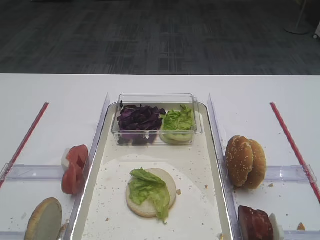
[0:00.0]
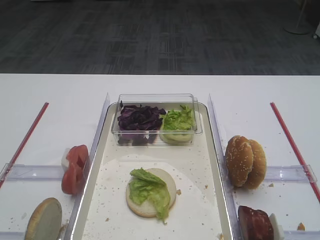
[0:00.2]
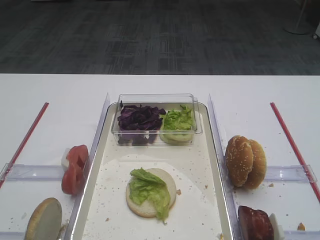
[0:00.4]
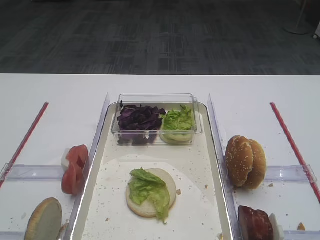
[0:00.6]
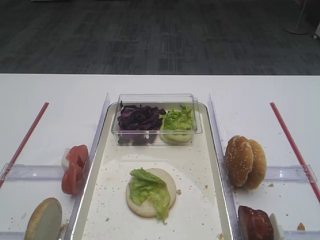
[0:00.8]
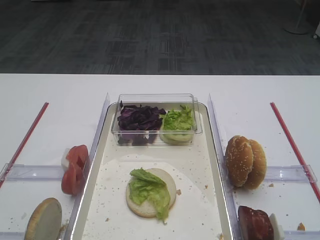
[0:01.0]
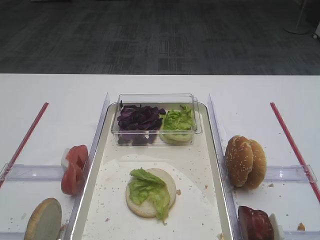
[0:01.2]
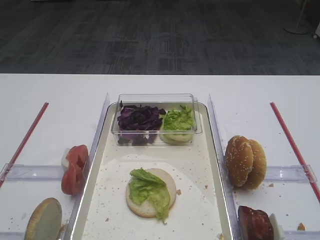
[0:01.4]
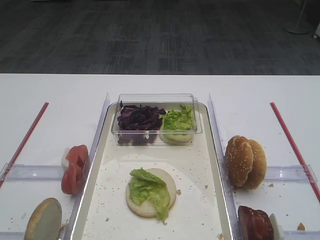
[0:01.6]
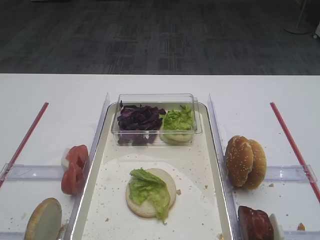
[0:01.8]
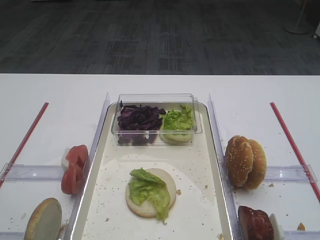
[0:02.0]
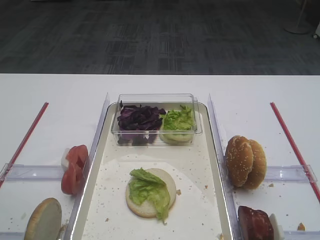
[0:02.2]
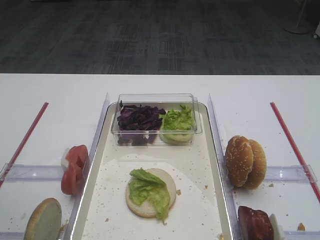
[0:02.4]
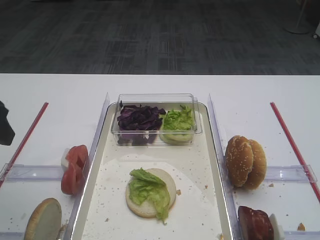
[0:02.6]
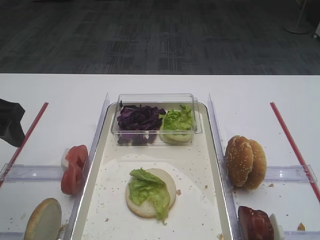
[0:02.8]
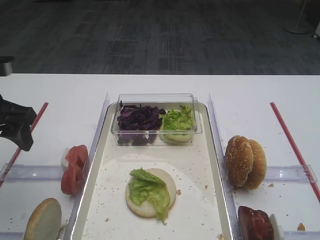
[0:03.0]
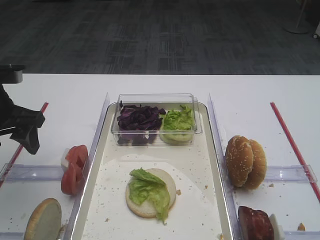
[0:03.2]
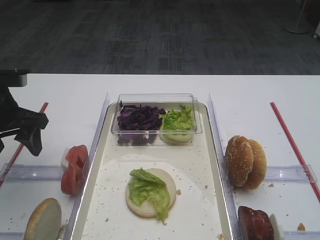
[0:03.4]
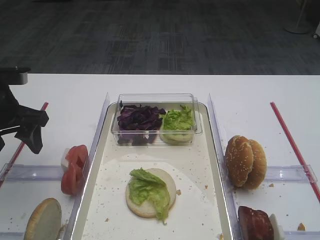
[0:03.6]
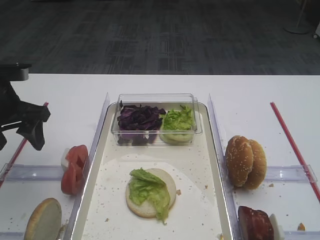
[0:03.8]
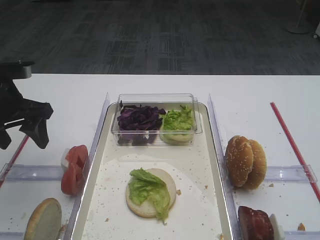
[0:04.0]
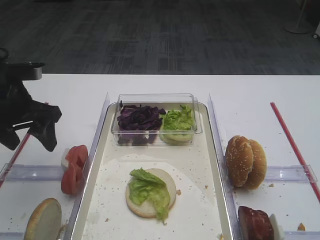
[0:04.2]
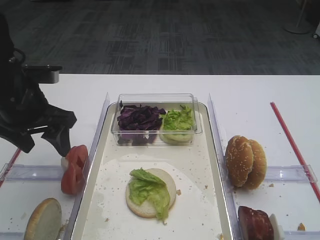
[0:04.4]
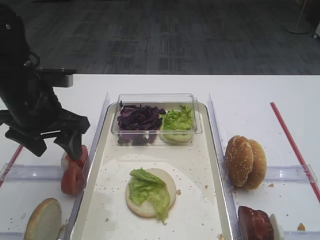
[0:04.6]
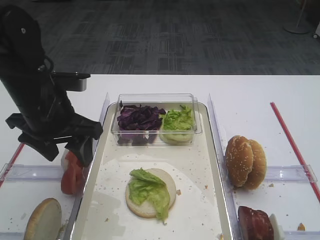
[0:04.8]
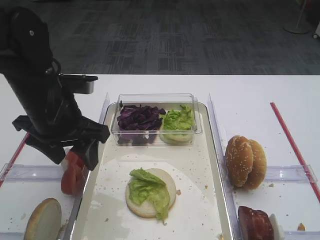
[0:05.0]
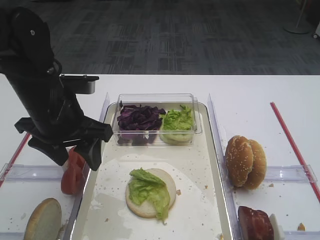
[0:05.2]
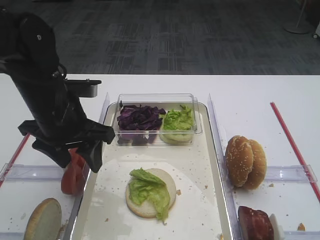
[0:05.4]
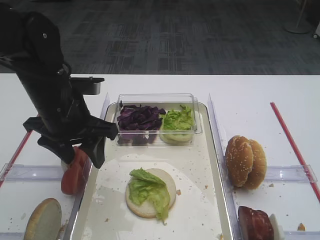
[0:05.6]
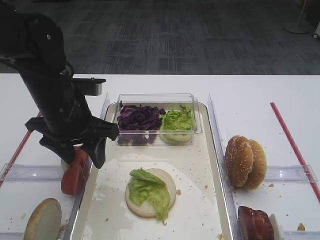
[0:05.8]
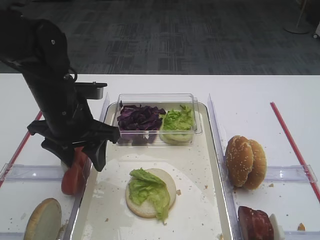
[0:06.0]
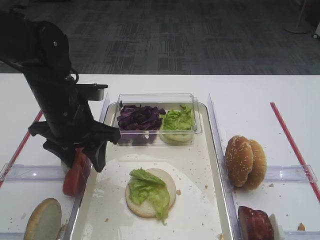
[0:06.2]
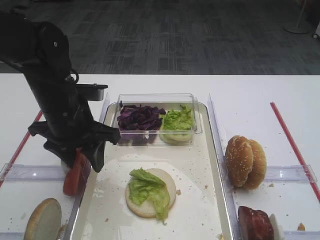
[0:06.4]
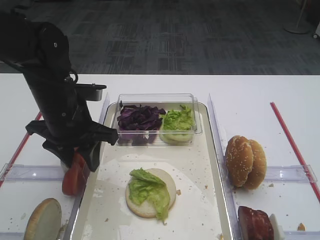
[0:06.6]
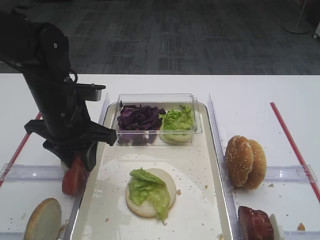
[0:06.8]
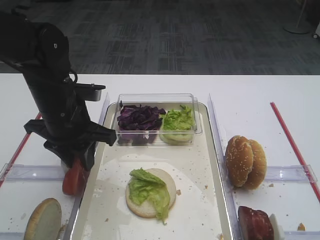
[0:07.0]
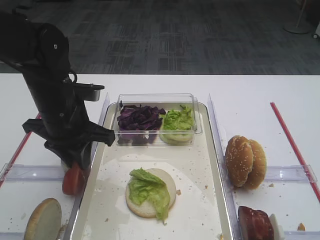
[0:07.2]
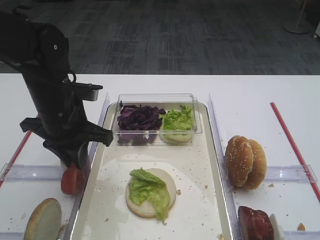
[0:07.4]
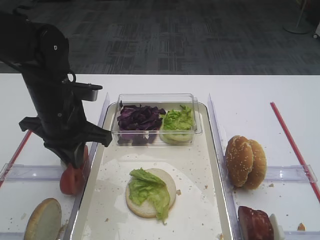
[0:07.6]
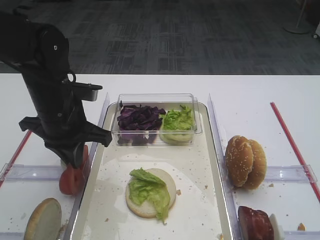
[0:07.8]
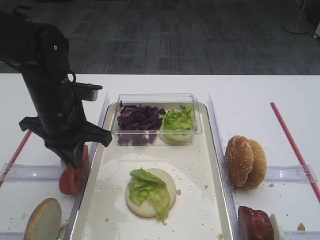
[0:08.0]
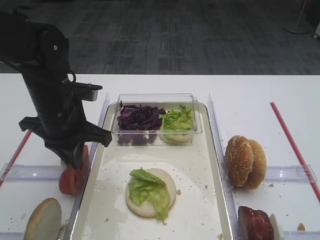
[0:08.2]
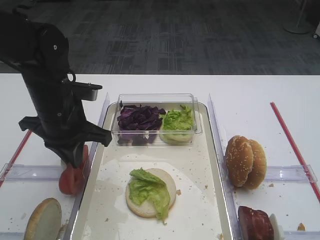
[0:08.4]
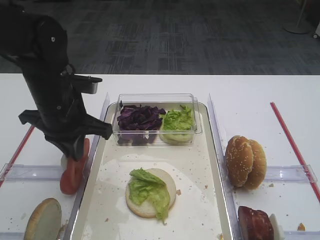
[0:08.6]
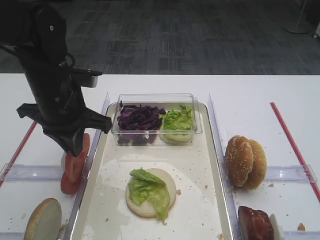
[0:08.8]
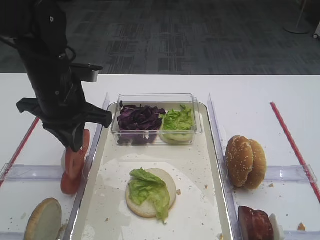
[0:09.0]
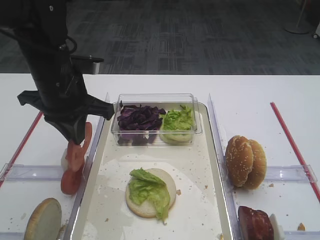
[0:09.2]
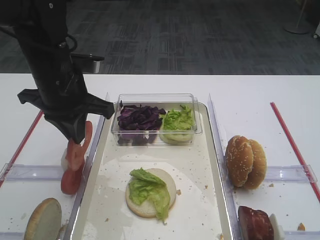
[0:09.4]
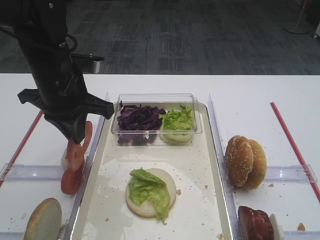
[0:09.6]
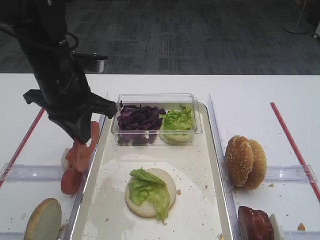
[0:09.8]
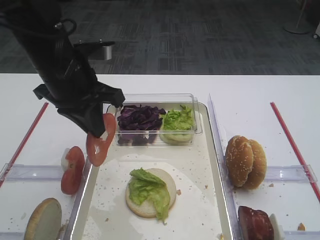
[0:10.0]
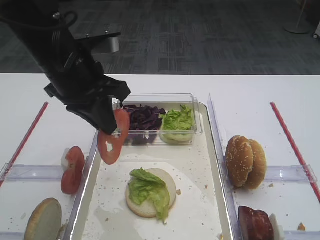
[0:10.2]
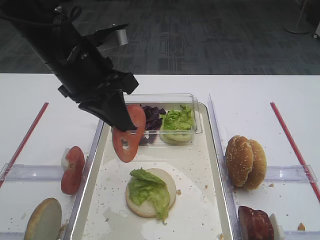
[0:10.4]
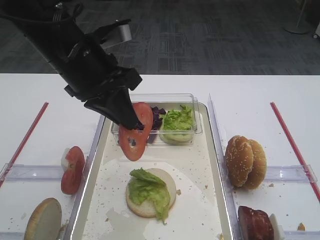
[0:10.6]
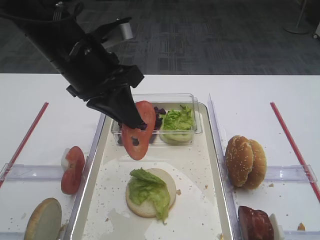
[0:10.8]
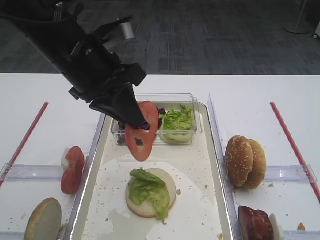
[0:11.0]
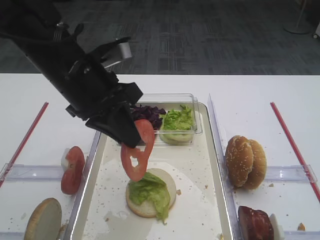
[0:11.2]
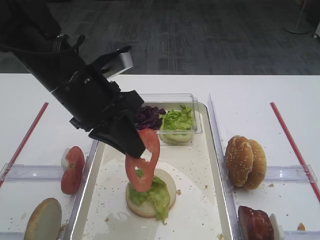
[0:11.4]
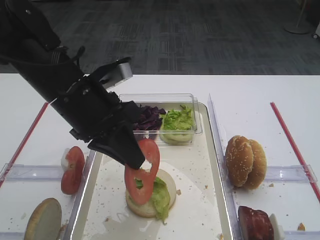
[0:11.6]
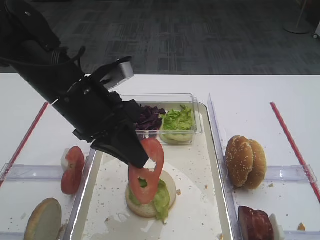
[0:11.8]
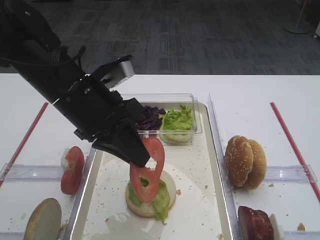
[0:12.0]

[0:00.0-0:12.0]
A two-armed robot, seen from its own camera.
Step, 0:00.0 to 0:08.6: Pick up the tomato slice with the left gripper.
0:01.6 to 0:03.0: The left gripper is displaced forward by roughly 25 cm.
0:03.0 to 0:04.4: The left gripper shifts approximately 5 cm to the right.
0:04.4 to 0:06.0: The left gripper moves to the right, roughly 5 cm.
0:06.0 to 0:07.6: The left gripper closes up.
0:07.6 to 0:09.0: The grippers move only a little.
0:09.0 to 0:10.4: The left gripper moves upward, some 5 cm.
0:10.4 to 0:12.0: The left gripper changes place by some 5 cm.

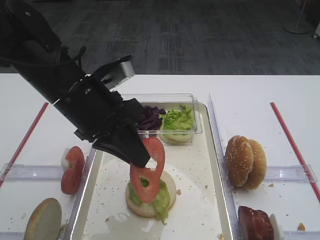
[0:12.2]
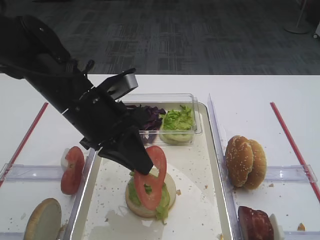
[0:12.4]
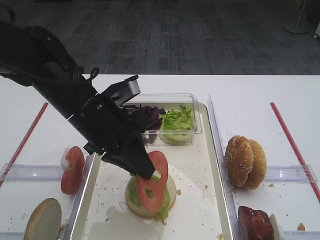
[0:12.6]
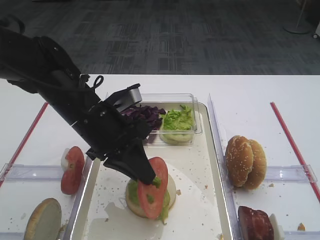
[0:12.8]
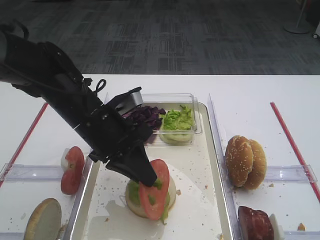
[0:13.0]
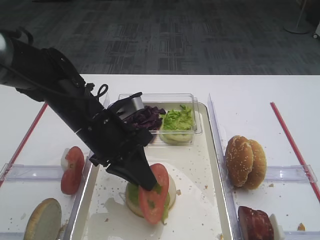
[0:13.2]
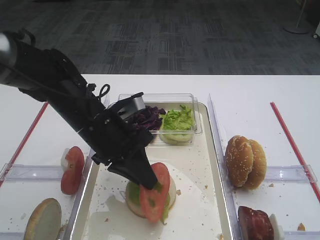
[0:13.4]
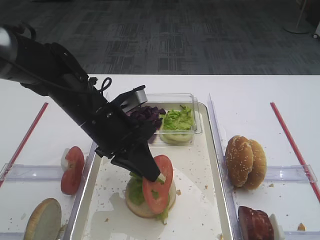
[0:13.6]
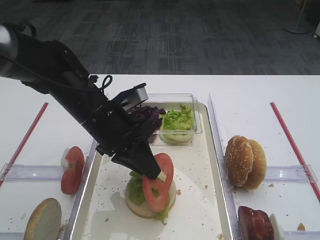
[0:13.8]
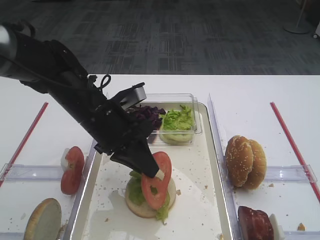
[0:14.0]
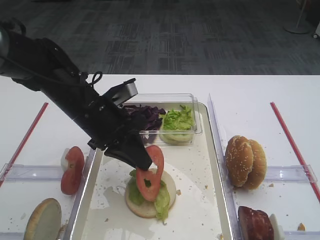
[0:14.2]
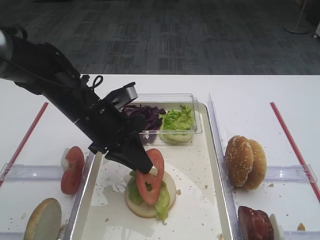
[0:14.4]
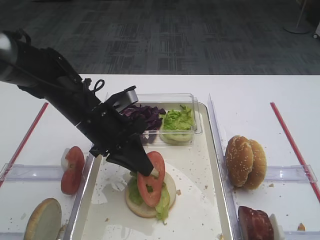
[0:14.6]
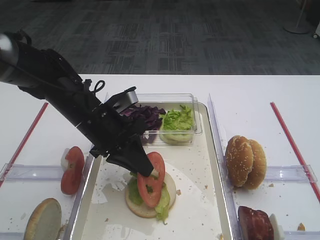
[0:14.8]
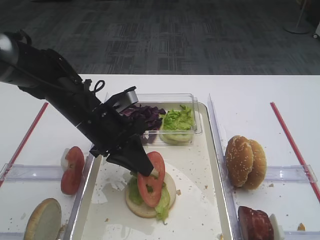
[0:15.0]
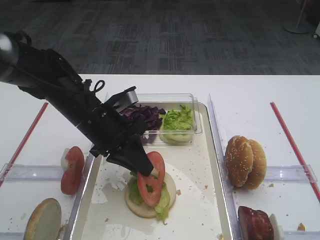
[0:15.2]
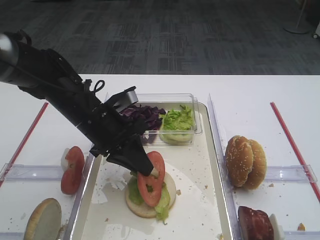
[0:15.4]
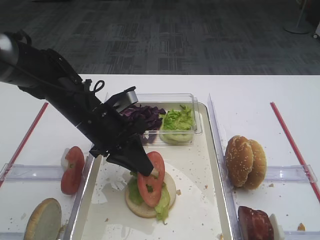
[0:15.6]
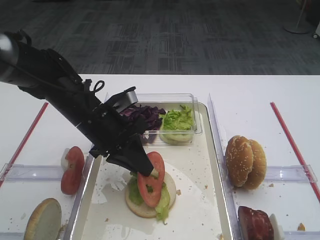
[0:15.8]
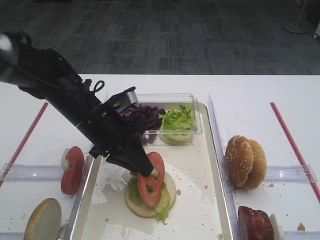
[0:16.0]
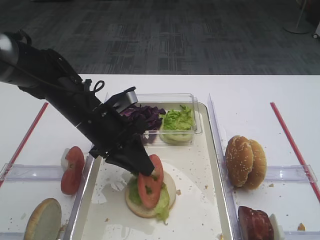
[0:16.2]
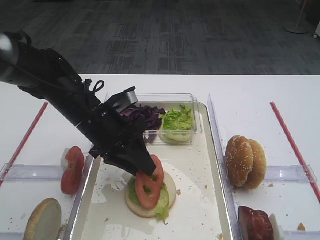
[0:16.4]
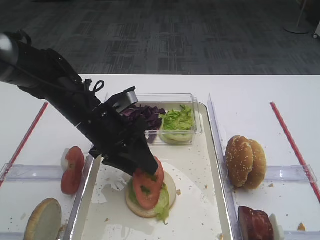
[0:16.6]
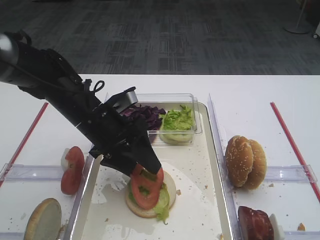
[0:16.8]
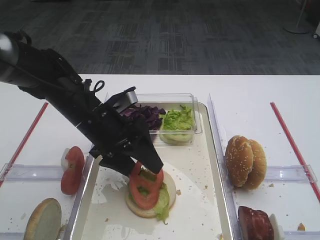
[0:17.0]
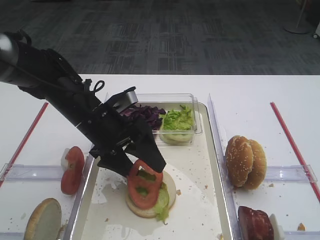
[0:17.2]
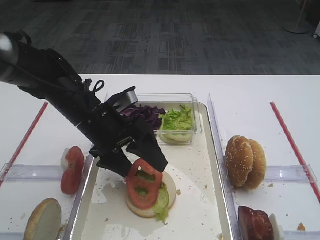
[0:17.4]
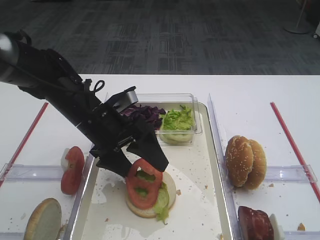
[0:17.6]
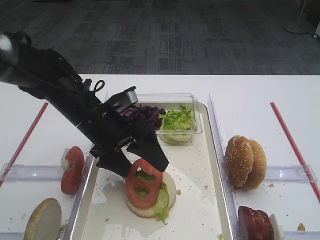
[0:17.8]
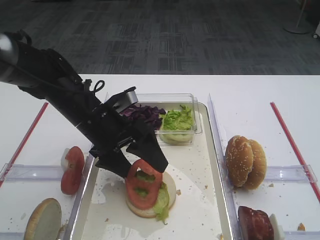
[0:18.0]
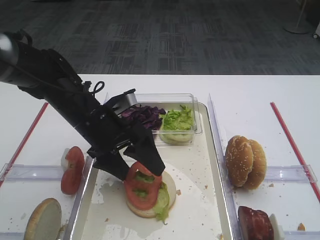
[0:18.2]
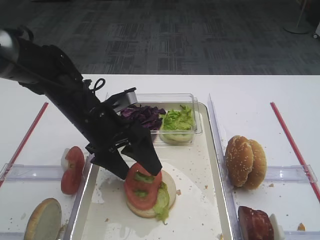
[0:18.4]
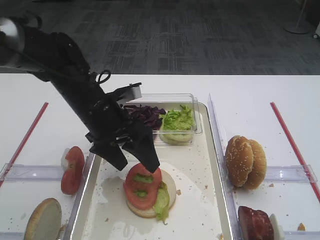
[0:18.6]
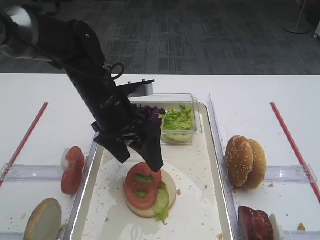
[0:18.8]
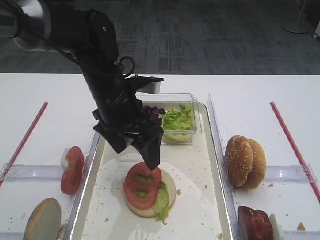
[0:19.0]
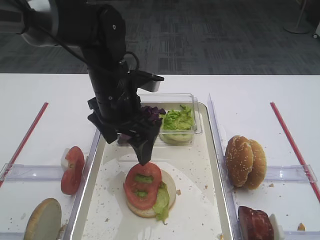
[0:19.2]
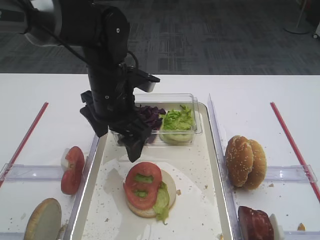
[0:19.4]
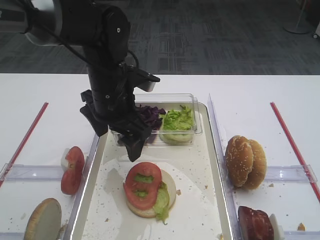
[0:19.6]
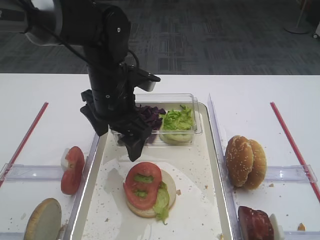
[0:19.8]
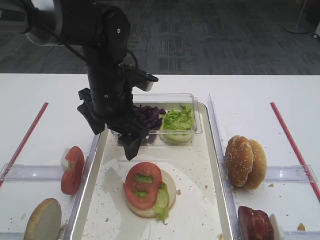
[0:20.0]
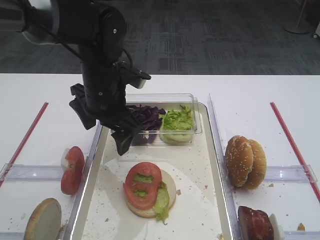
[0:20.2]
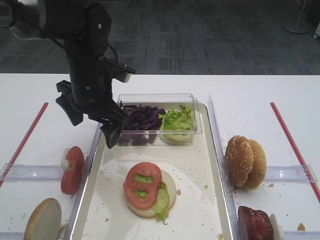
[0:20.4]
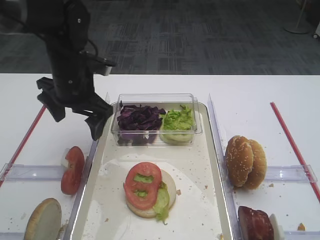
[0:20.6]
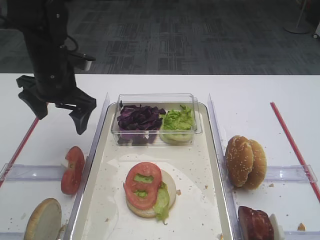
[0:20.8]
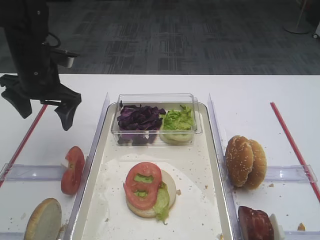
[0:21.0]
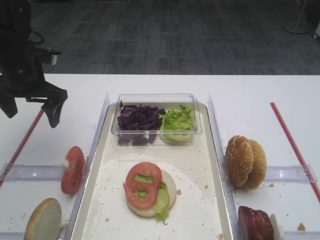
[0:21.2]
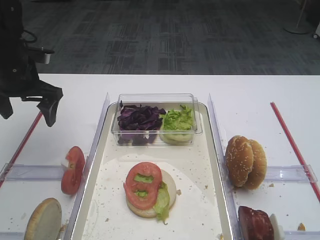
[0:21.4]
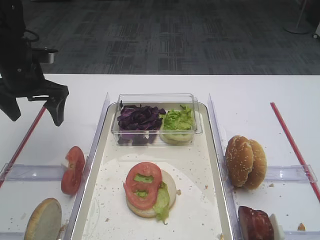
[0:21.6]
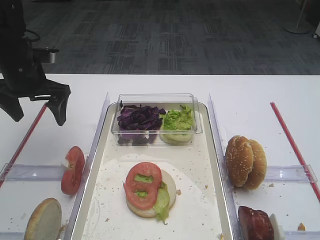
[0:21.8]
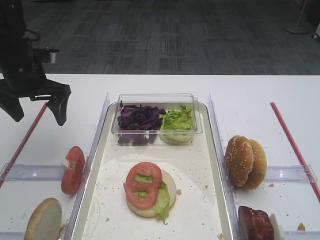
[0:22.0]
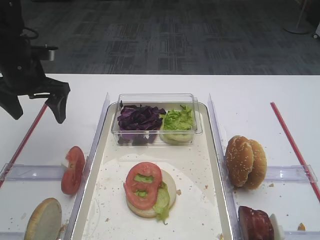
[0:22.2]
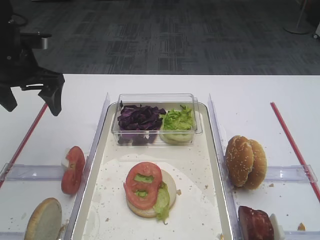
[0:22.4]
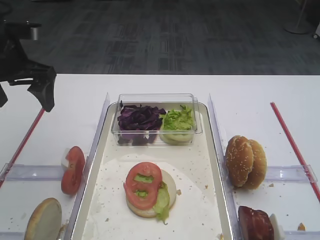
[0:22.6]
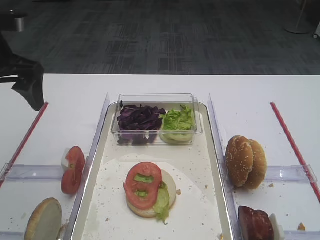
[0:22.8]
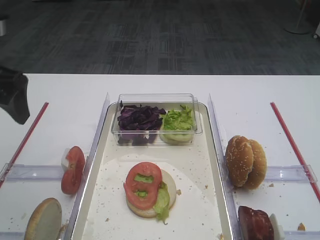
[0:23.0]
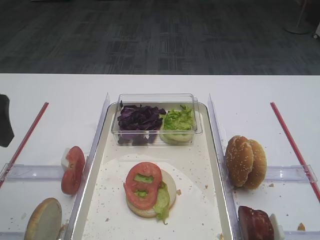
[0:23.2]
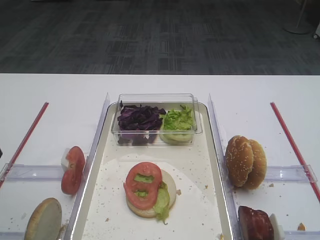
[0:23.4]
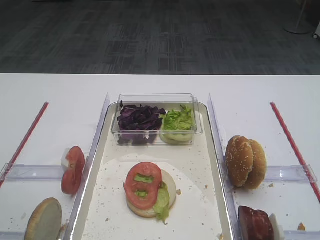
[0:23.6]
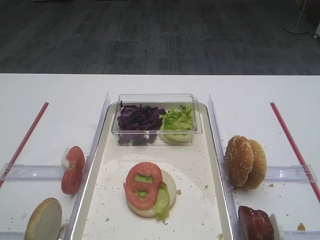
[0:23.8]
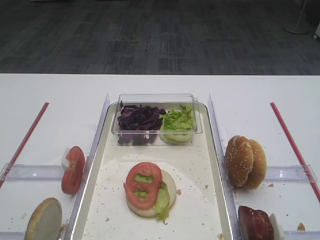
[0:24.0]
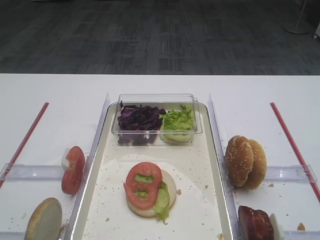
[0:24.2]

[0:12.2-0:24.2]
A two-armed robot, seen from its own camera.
Step, 0:12.2 to 0:18.6: Place the tomato slice on the lettuce leaf with the left gripper.
0:12.2 to 0:13.8: The right gripper closes up. Meanwhile the left gripper moves downward, roughly 5 cm.
0:13.8 to 0:15.2: The grippers make only small movements.
0:15.2 to 0:16.6: The left gripper opens up.
0:16.6 to 0:18.2: The left gripper opens.
0:18.2 to 0:19.8: The left gripper travels upward by roughly 5 cm.
0:19.8 to 0:21.2: The left gripper goes roughly 15 cm to the left.
0:21.2 to 0:22.6: The left gripper travels upward by some 5 cm.
0:22.6 to 0:24.2: The left gripper goes some 30 cm backward.
